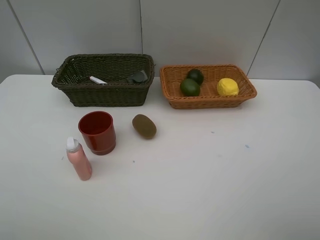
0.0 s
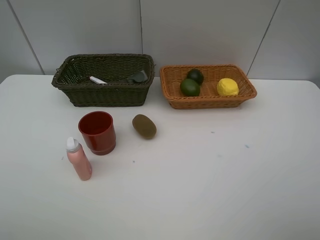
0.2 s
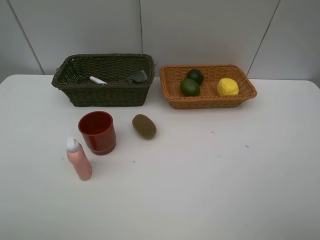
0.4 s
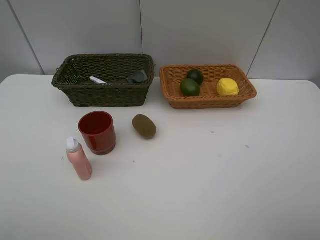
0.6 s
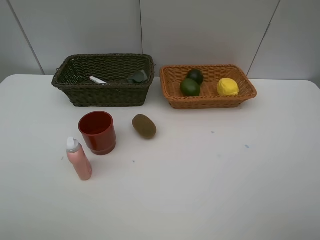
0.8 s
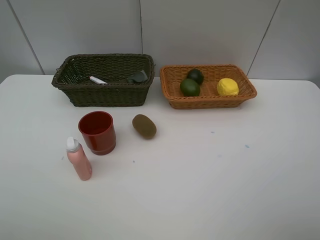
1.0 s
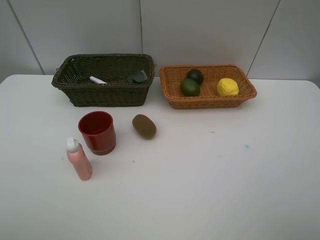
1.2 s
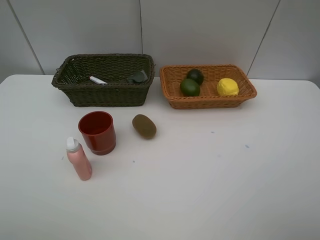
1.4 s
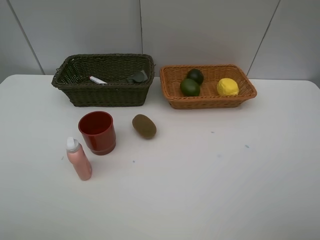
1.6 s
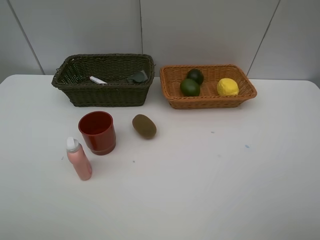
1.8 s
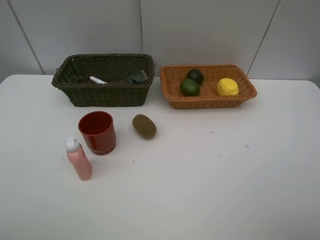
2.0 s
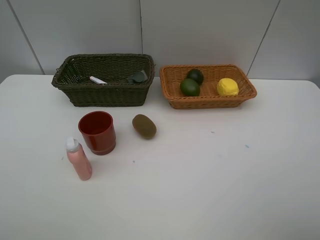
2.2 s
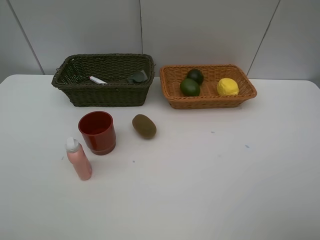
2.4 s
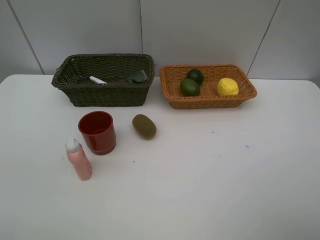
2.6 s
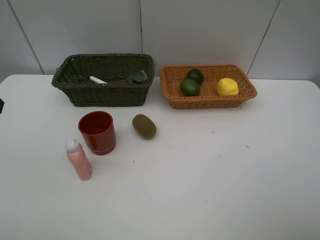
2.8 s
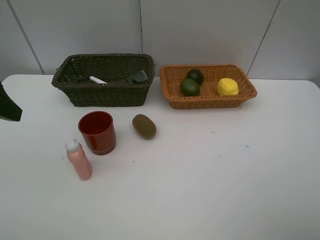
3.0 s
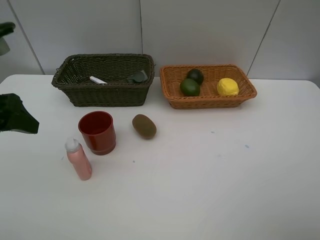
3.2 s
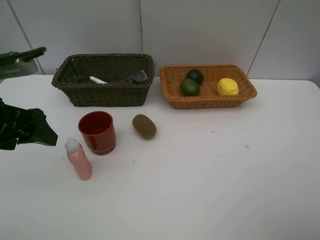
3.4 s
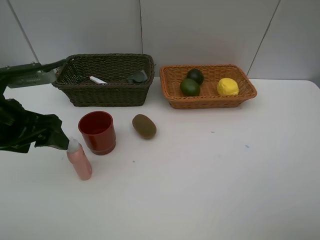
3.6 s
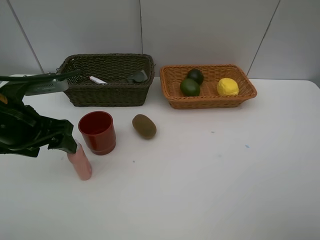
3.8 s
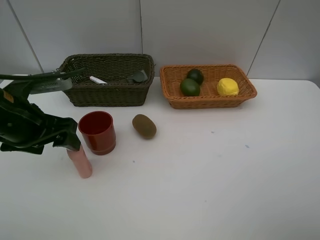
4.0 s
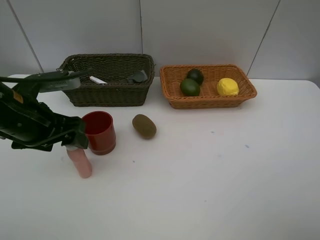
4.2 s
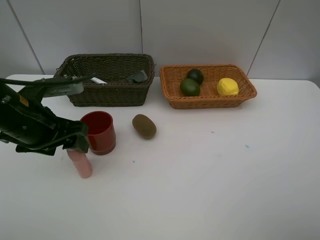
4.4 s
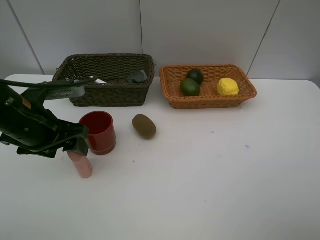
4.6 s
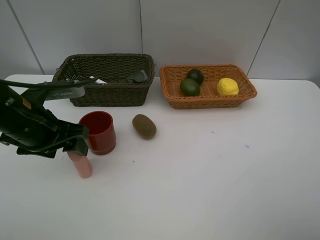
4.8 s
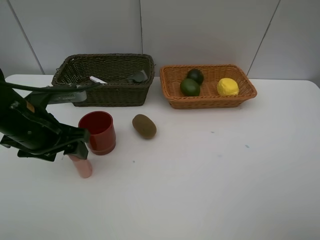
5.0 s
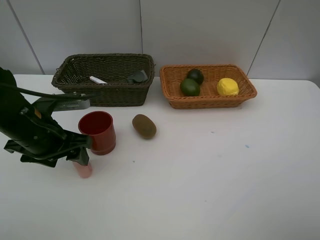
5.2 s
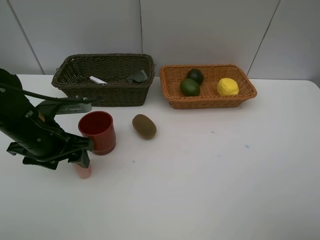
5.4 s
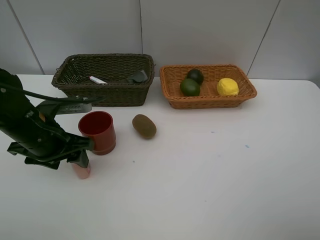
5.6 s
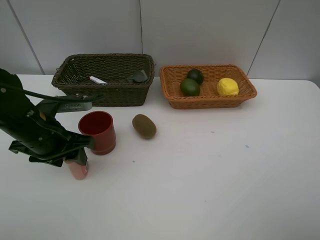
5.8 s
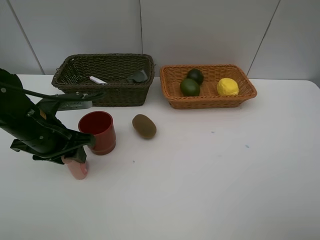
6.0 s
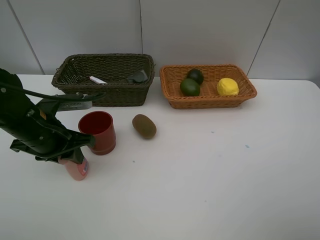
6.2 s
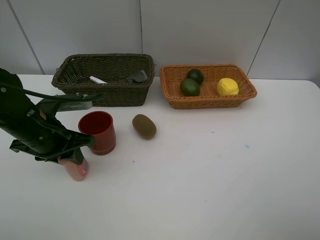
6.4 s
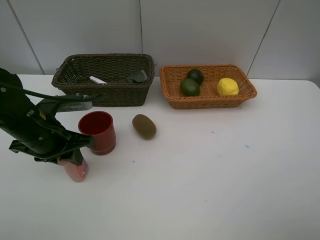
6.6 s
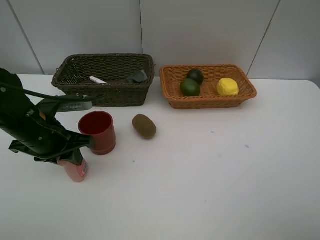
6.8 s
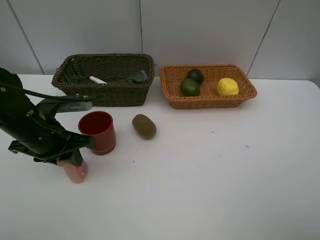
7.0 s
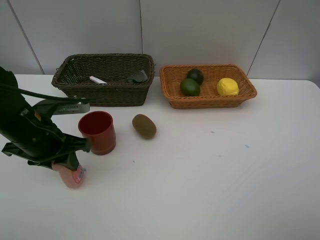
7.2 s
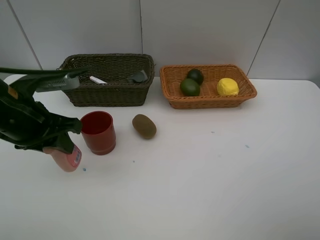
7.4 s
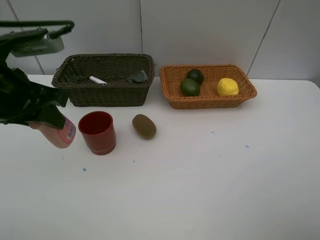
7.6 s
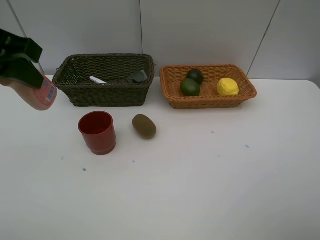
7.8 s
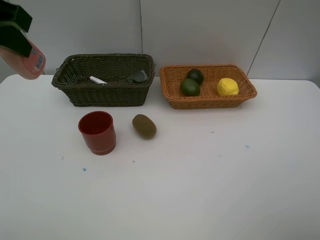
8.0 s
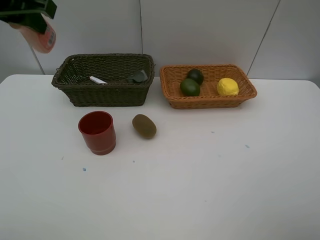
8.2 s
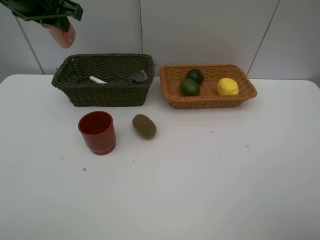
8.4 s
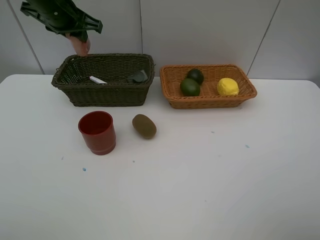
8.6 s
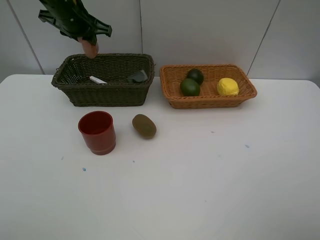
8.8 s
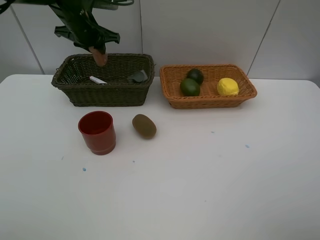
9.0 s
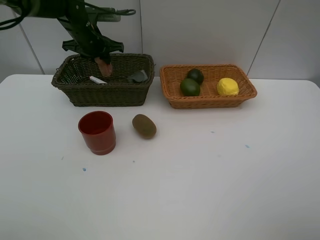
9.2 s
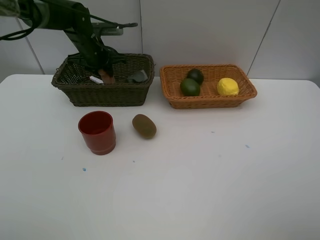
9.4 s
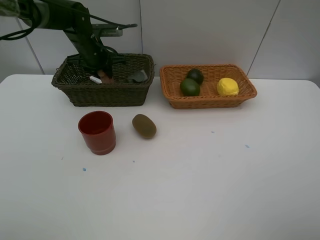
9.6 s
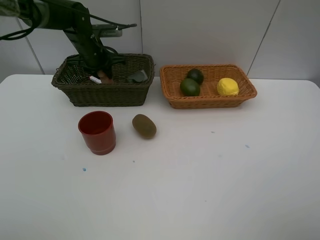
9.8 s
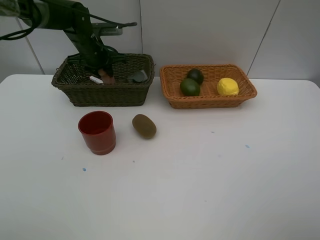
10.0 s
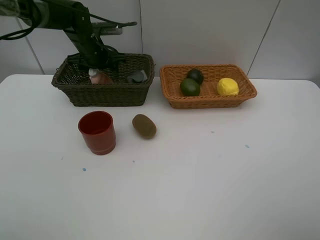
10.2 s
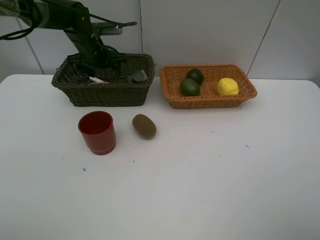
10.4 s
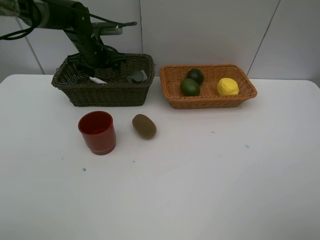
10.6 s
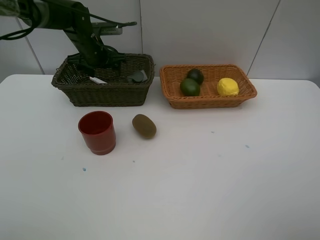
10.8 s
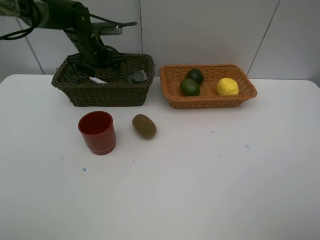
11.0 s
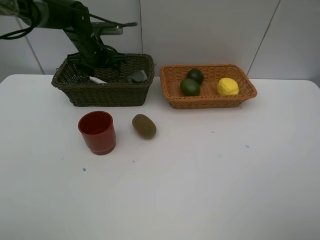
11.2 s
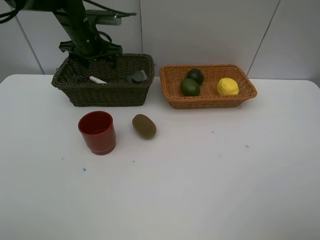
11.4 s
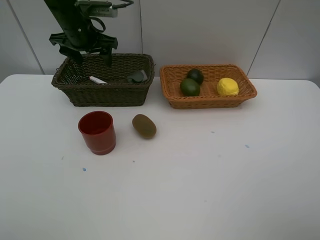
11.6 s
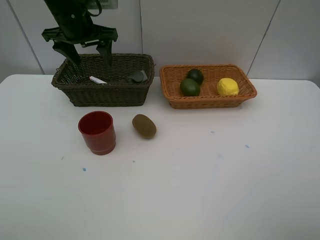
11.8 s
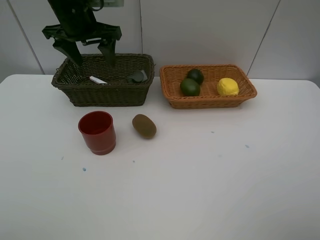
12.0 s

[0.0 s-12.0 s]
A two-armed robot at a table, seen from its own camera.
Task of the whole recording: Place multiple objects separately in different baskets.
Step, 0.0 to 7.2 s: Pick up the laundry detergent with left gripper.
Step, 7.4 to 10.6 s: Place the laundry detergent in the dark basket with left gripper.
0.0 to 1.6 s: The two grippers keep their place.
1.6 to 3.0 s: The left gripper moves forward, about 15 cm.
3.0 to 4.4 s: The left gripper travels downward and to the right by roughly 10 cm.
4.4 to 6.0 s: The left gripper closes up.
6.0 to 7.6 s: The left gripper shifts about 15 cm upward.
7.6 to 9.0 s: The left gripper goes roughly 30 cm forward.
9.0 to 10.4 s: The left gripper shifts about 5 cm downward, and opens its fingers.
10.4 to 12.0 s: The left gripper shifts some 15 cm upward and backward.

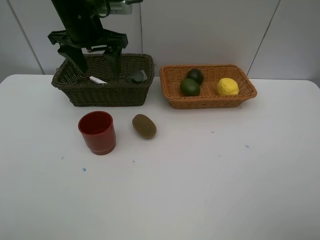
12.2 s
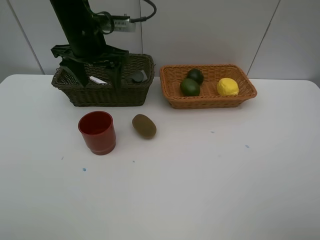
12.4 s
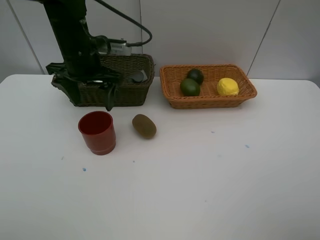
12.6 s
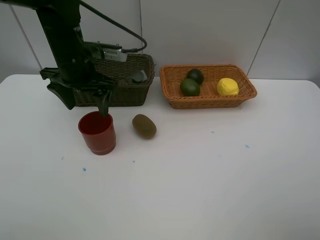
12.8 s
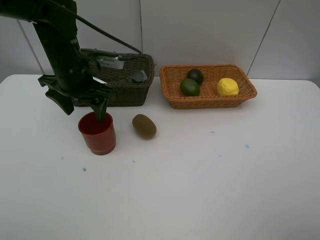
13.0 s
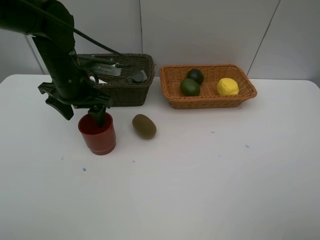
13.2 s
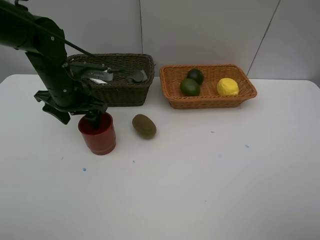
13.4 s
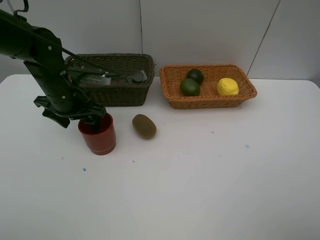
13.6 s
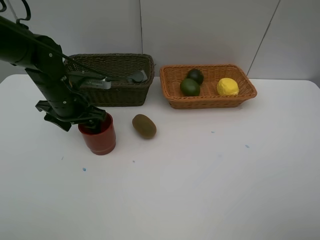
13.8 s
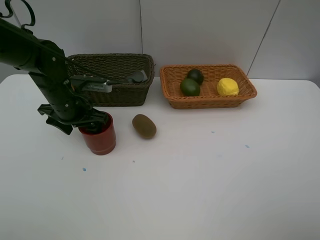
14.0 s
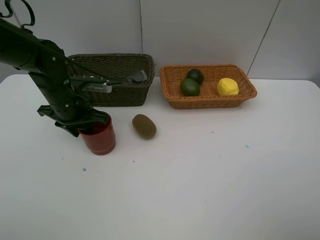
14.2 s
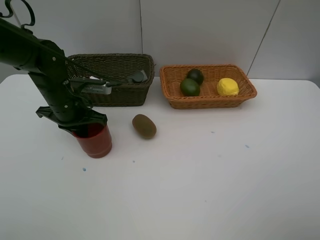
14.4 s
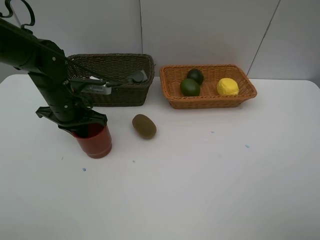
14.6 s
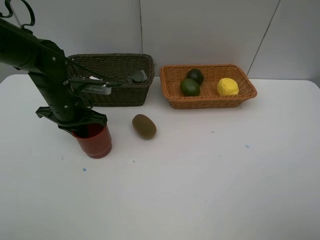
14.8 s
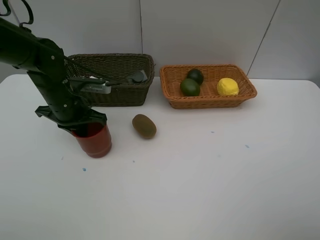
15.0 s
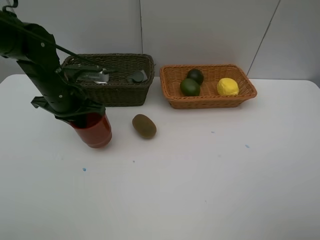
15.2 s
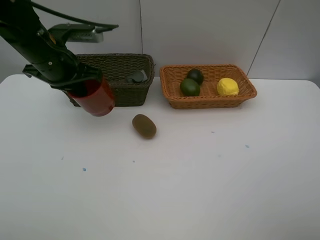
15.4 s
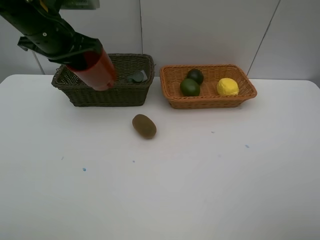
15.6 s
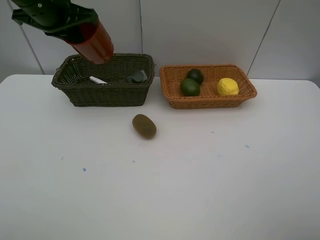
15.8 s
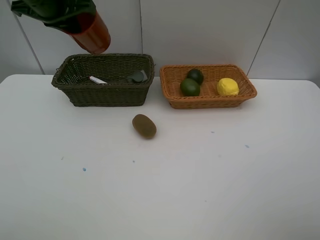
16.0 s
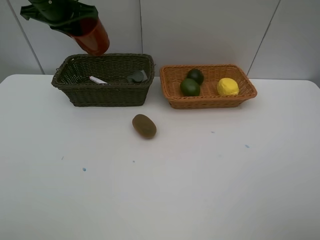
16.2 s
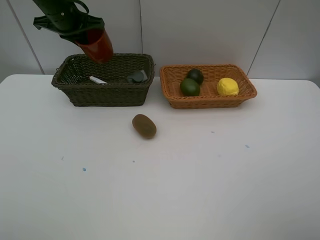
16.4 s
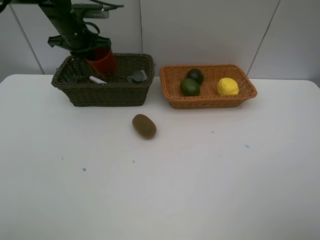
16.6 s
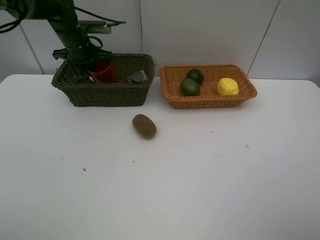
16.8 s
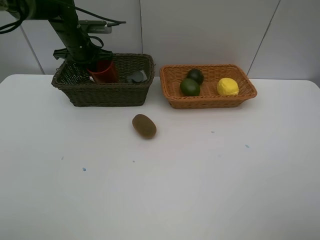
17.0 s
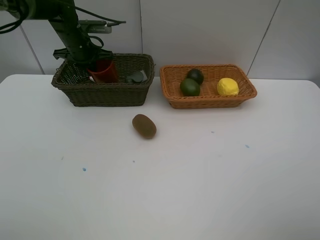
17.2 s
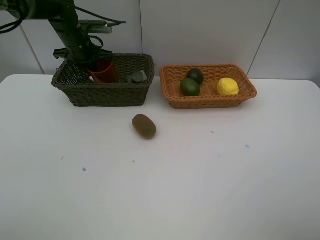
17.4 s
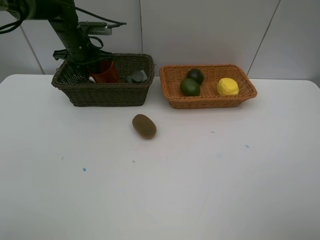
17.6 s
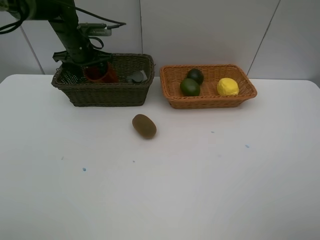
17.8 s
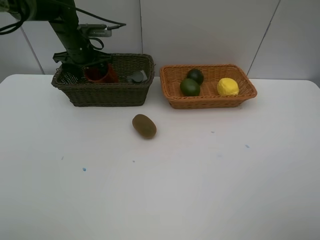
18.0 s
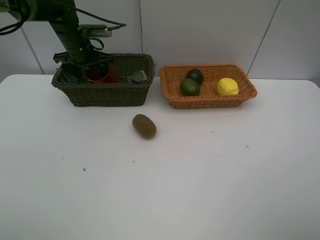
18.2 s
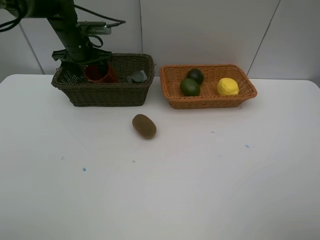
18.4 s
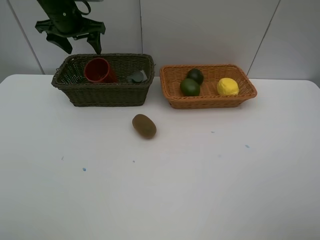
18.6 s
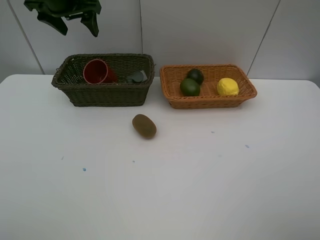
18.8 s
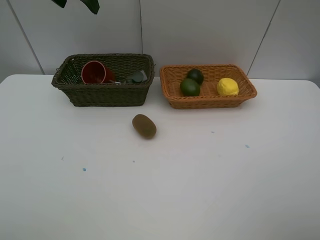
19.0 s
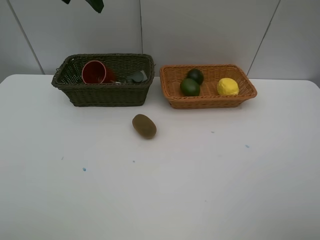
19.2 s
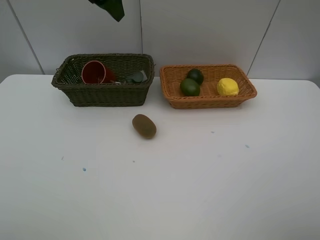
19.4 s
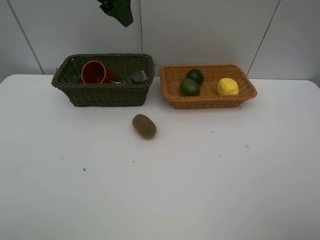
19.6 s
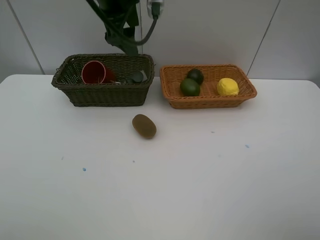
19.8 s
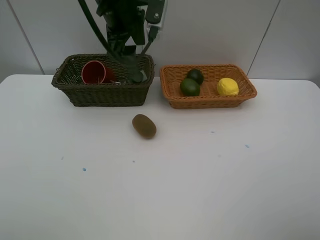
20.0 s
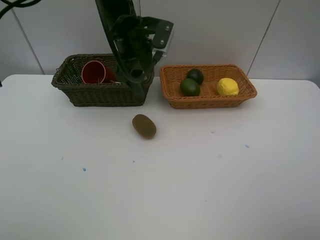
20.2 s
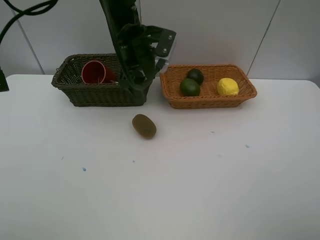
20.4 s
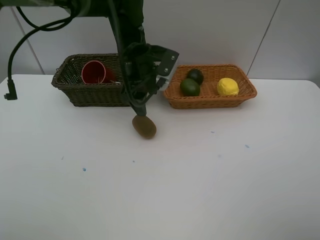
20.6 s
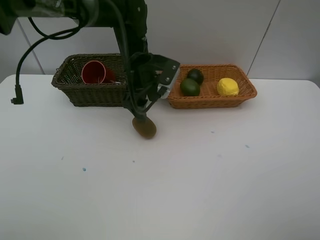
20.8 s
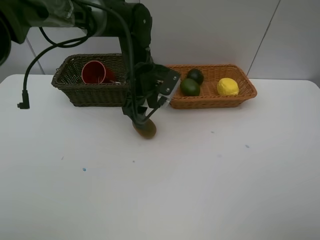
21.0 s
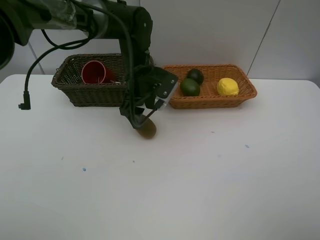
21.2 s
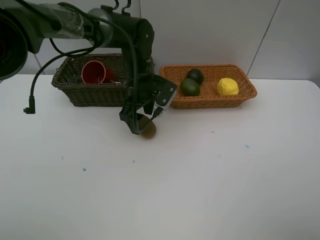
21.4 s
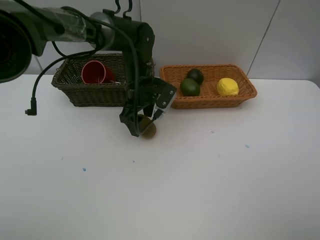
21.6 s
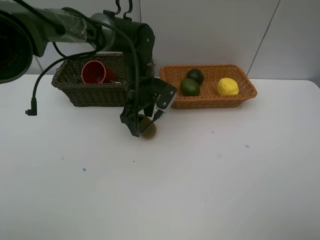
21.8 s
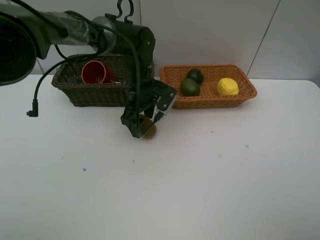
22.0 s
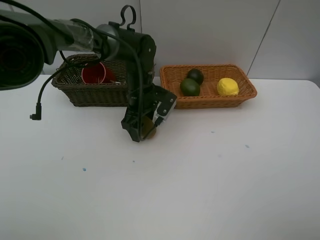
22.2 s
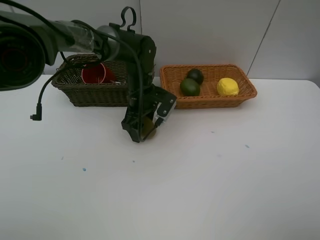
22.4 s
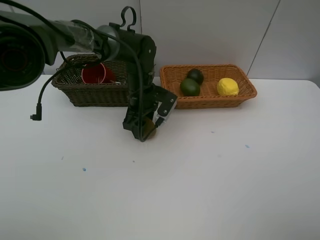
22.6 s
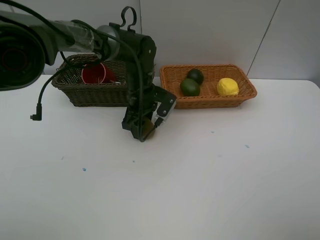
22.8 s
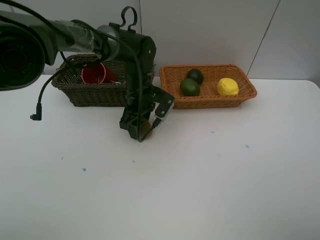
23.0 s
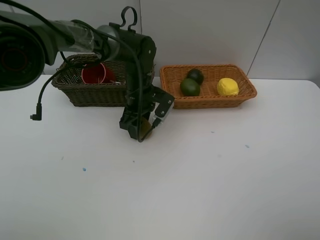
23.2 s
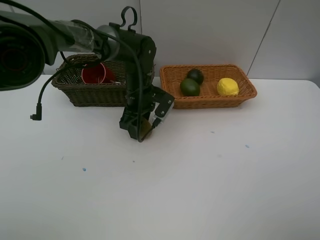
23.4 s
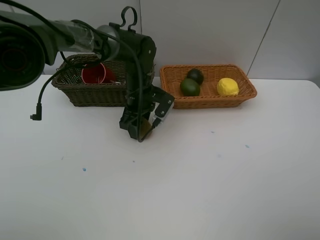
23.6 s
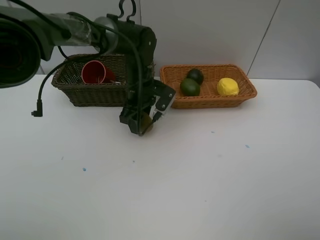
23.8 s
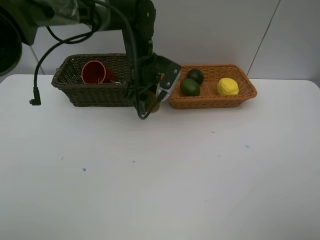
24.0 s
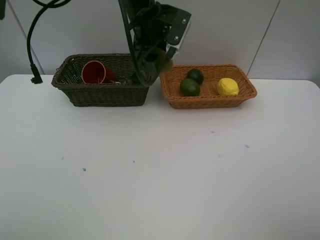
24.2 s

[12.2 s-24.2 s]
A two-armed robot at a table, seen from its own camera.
Task of the whole recording: Place multiple objects separately in different baskets.
Step, 12.2 to 15.2 s: Pick up the dark brown cup with left gripper.
Step, 15.4 to 18.6 s: Place the dark brown cup in the dark basket with left gripper.
Step, 18.8 to 23.8 s: Pick up kiwi with left gripper.
12.2 to 13.8 s: The left gripper shifts about 15 cm downward, backward and to the left.
13.8 to 15.2 s: The left gripper closes up.
15.2 to 16.6 s: The left gripper goes some 15 cm forward.
16.6 to 18.2 s: The left gripper opens.
18.2 to 19.8 s: The left gripper heads upward, to the right and backward, covering roughly 25 cm.
19.8 to 21.2 s: The left gripper shifts some 15 cm downward.
21.2 to 22.6 s: The left gripper goes some 5 cm downward.
22.6 to 24.2 s: The left gripper is displaced upward by approximately 15 cm.
